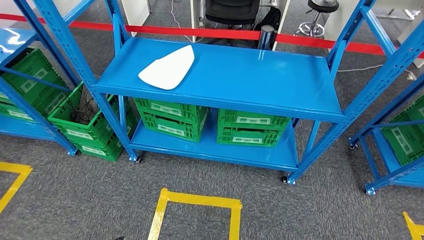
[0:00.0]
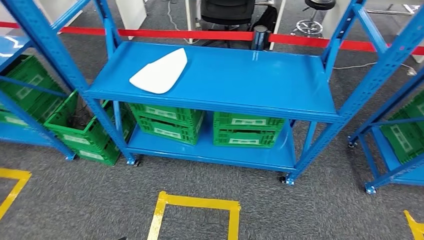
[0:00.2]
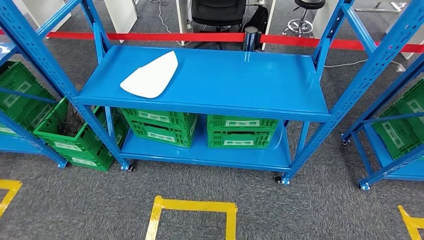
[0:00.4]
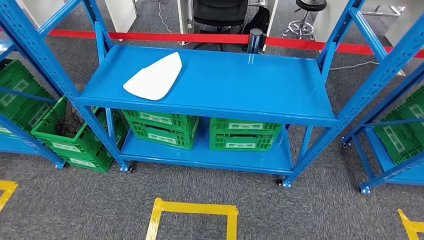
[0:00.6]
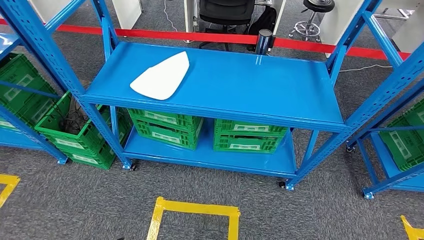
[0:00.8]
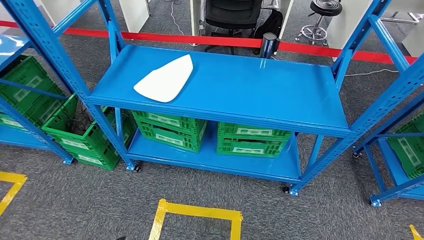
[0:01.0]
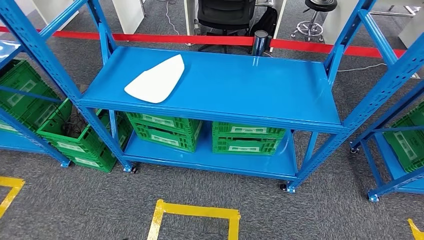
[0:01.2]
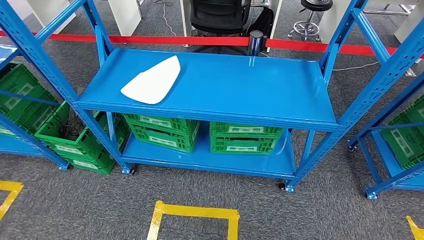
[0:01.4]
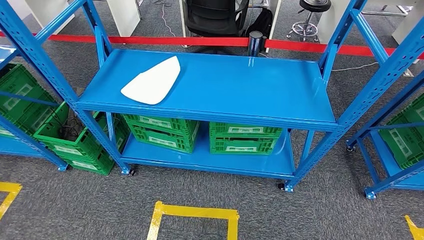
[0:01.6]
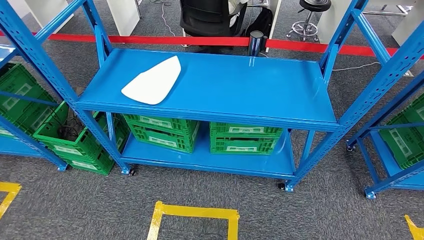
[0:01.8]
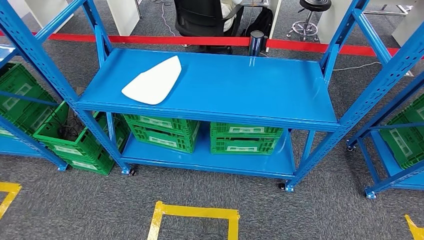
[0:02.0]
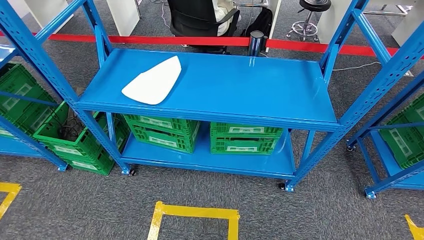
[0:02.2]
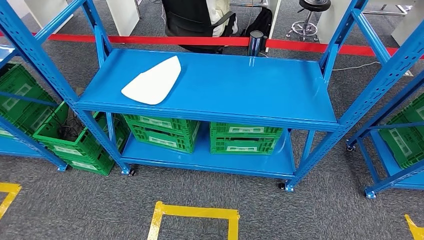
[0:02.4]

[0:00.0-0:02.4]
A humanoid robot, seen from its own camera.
Step, 0:00.0 to 0:02.4: Return to the initial position at the workbench.
0:01.2 to 0:02.4: The hands stay close to where they were, moving slightly.
